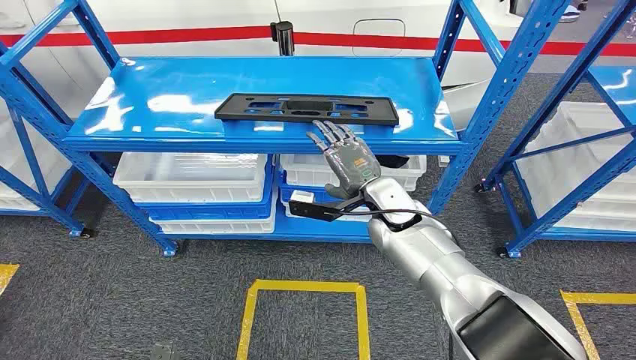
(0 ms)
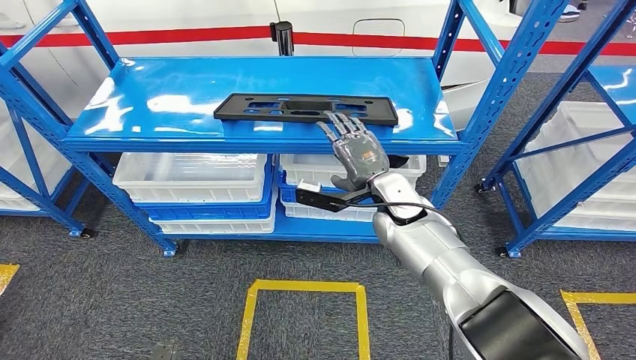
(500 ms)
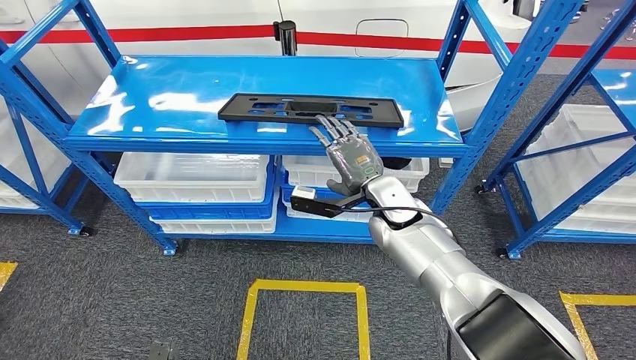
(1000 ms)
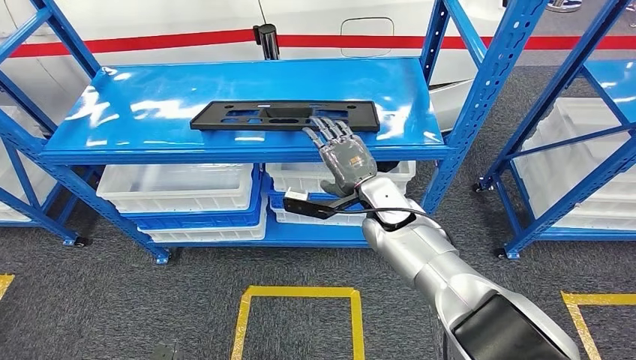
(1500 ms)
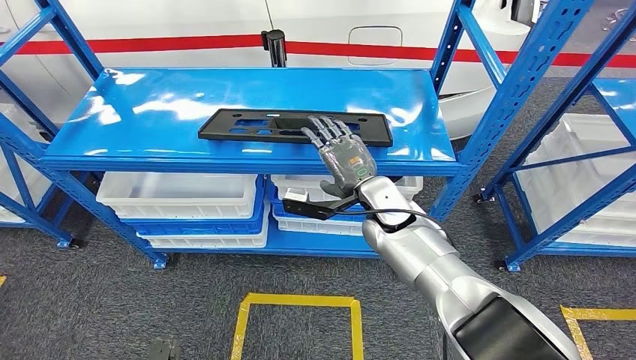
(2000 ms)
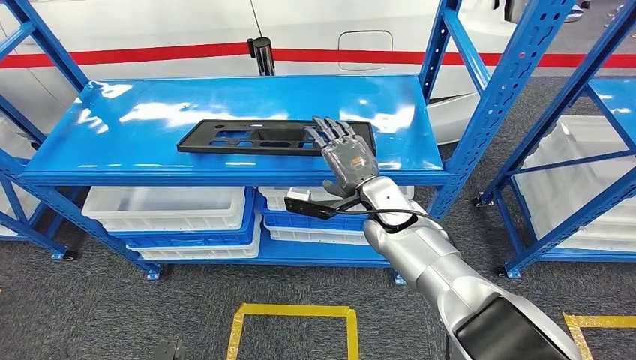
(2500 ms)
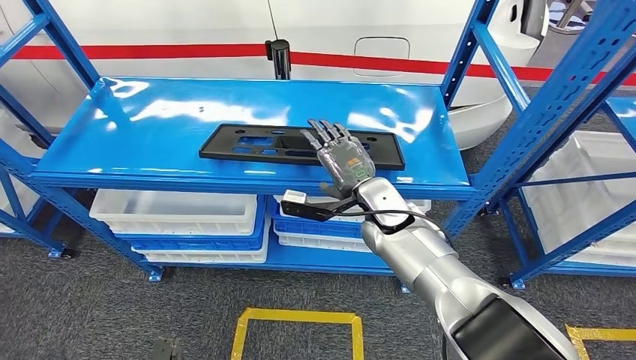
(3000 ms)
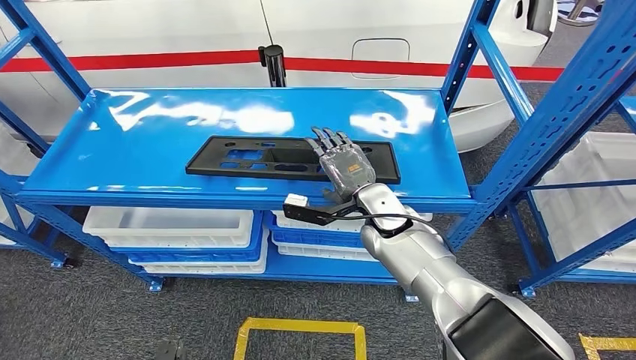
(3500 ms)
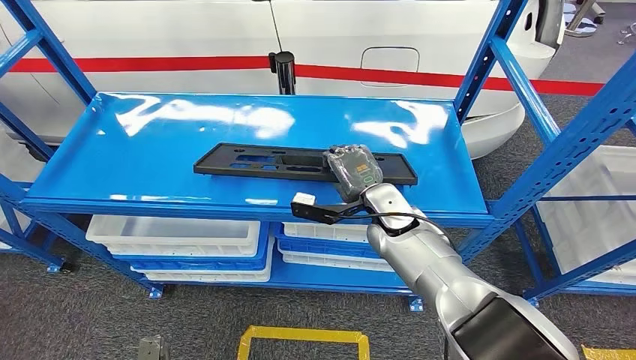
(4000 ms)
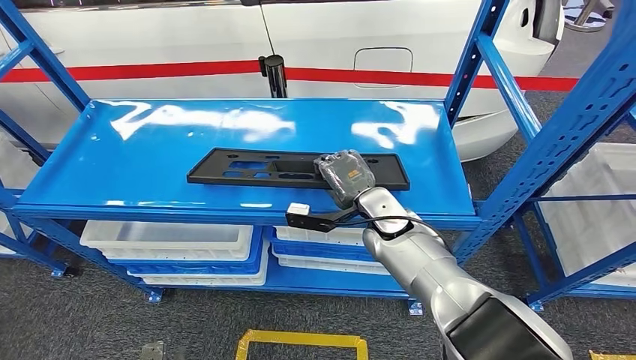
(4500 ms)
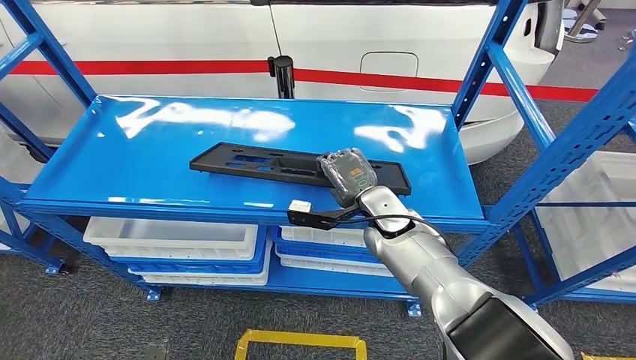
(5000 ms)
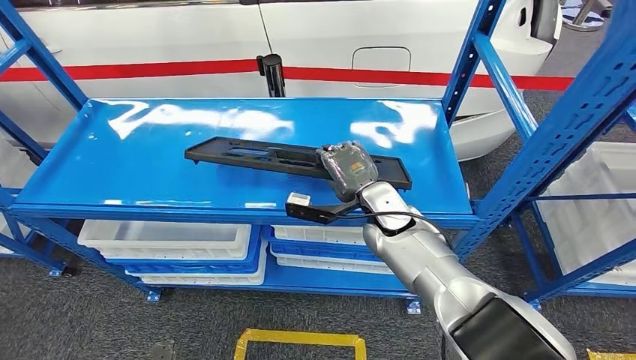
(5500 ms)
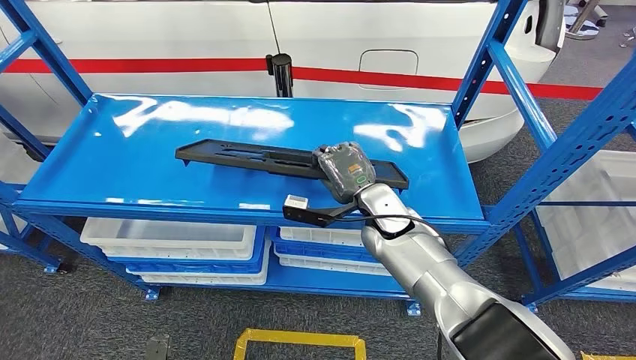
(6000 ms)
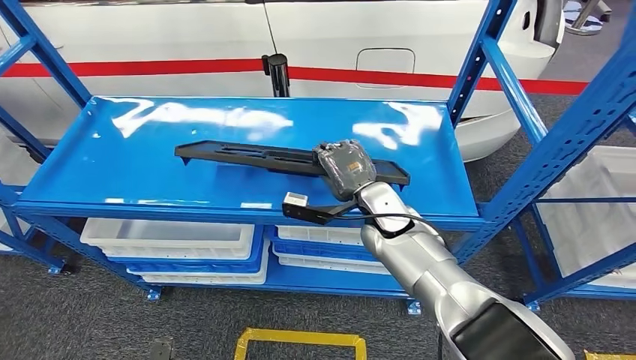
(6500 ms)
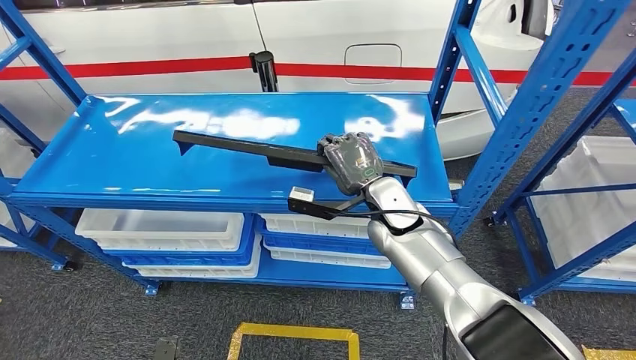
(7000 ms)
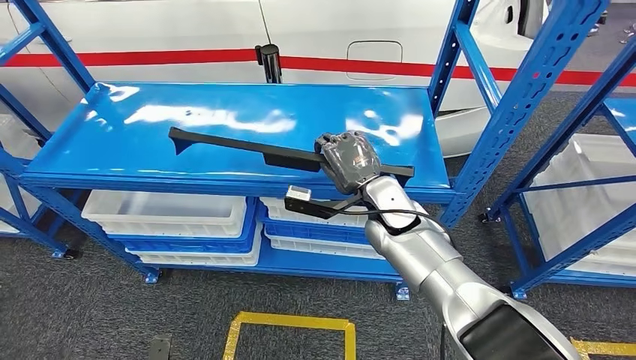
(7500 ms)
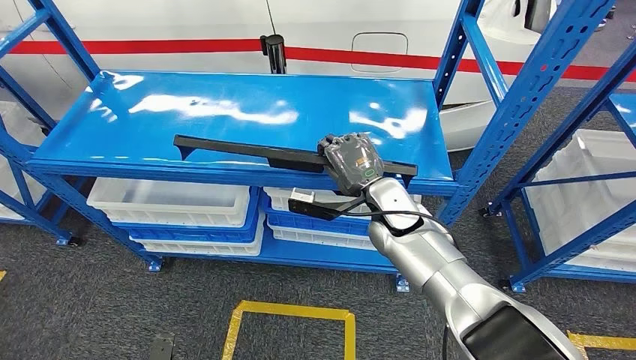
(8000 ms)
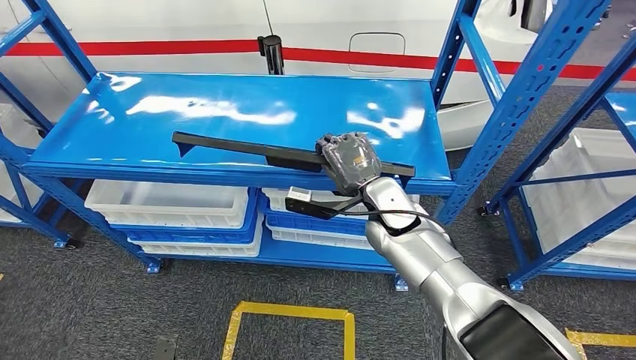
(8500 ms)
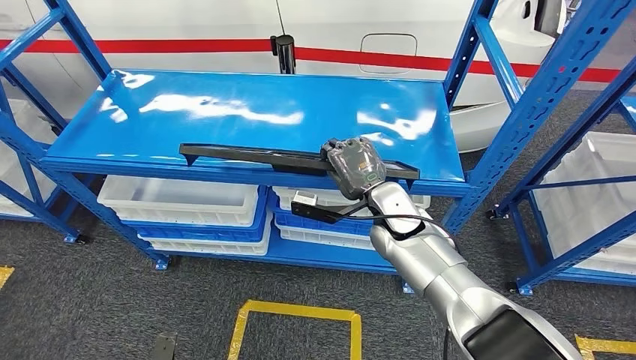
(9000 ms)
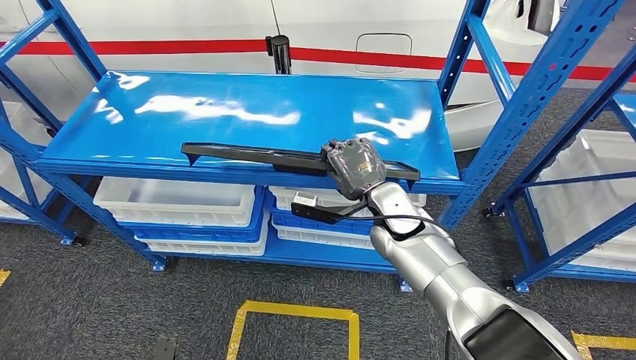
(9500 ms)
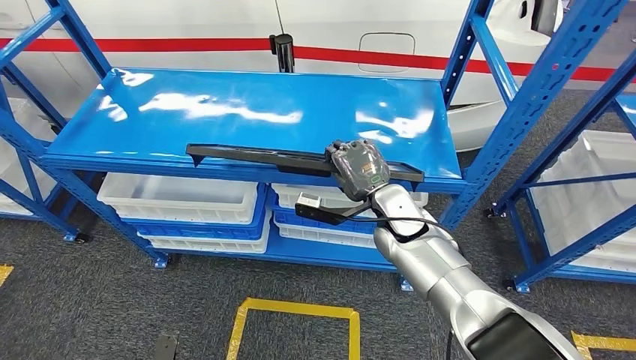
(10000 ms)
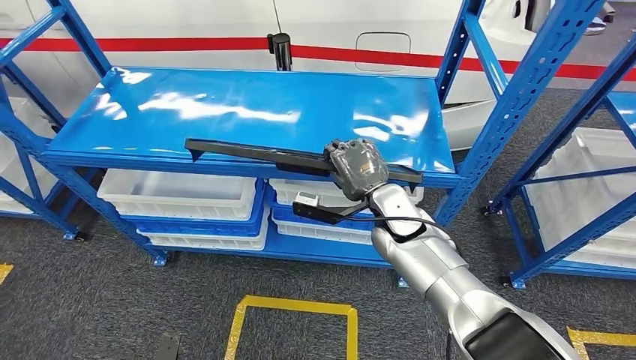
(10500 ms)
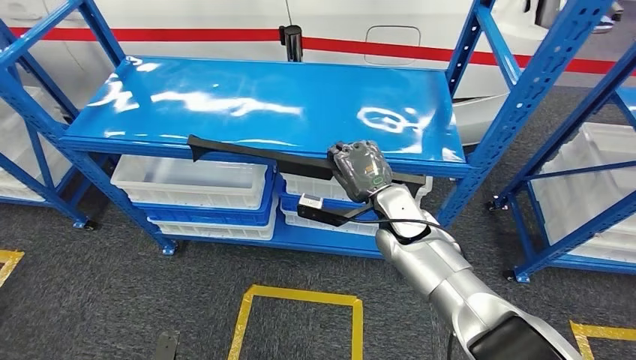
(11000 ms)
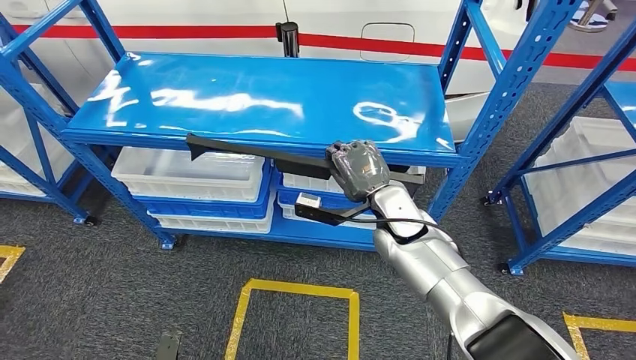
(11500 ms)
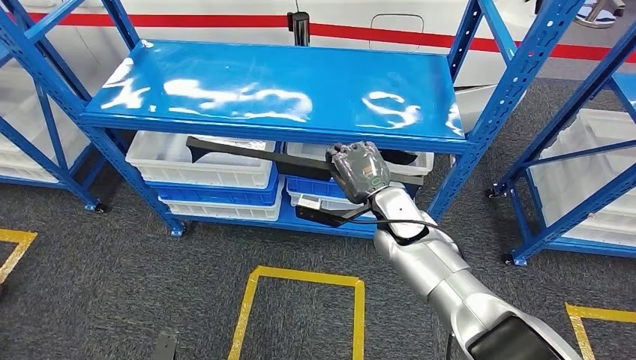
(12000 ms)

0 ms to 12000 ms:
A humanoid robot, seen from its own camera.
Step, 0 ms to 7500 ms: Pick up the large material from the shelf.

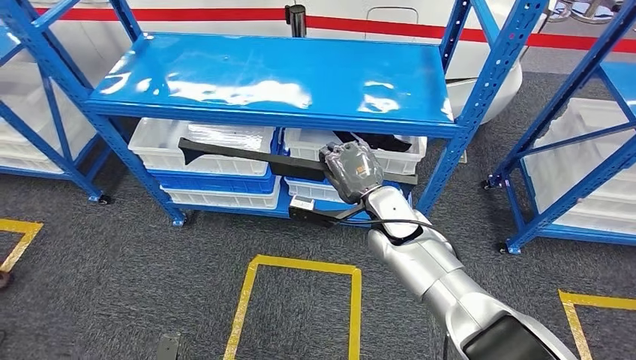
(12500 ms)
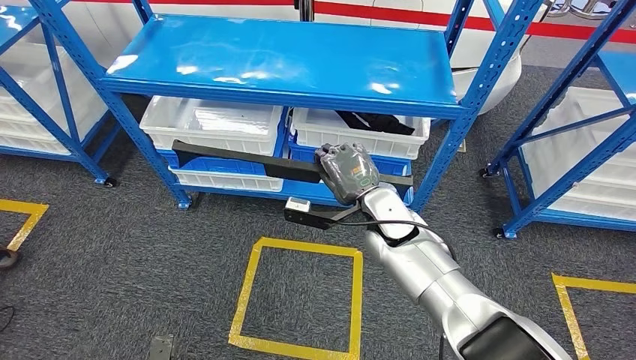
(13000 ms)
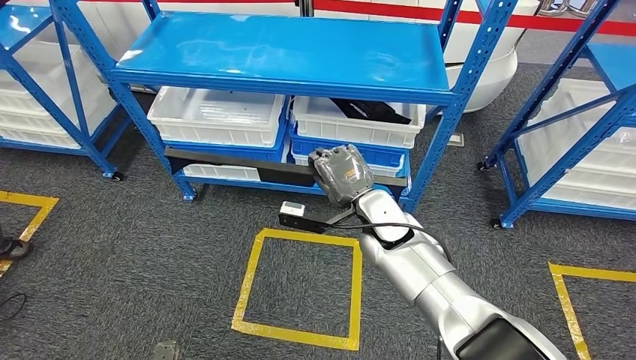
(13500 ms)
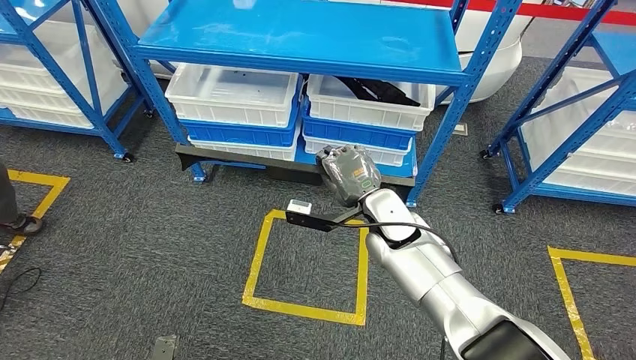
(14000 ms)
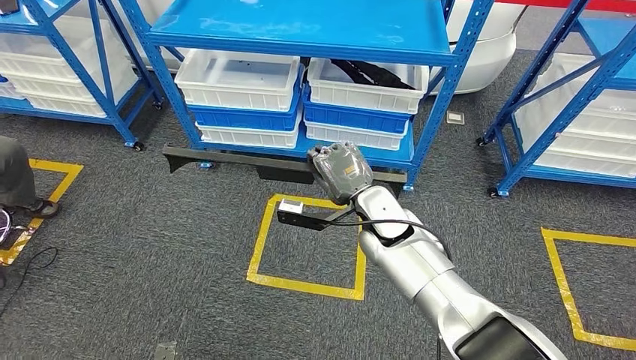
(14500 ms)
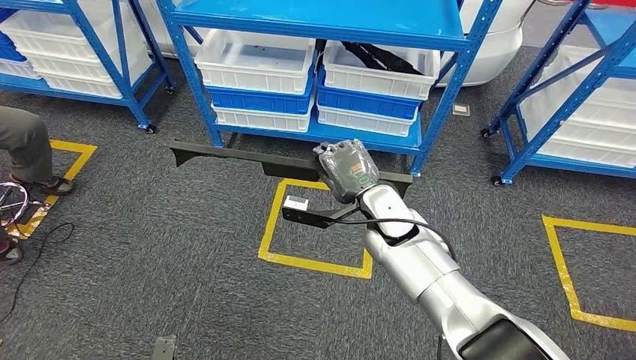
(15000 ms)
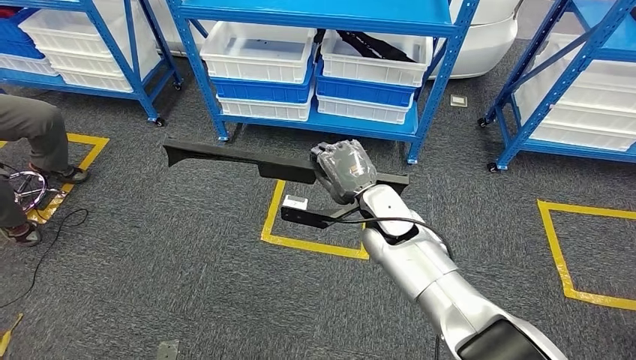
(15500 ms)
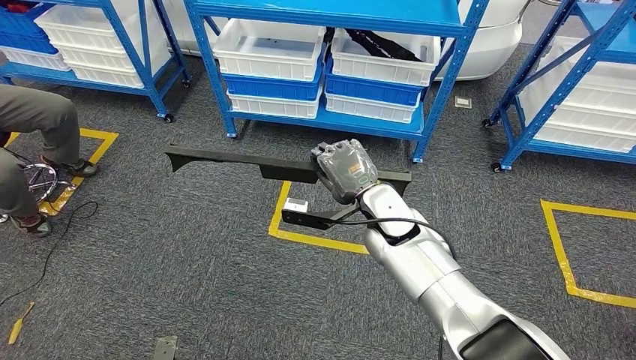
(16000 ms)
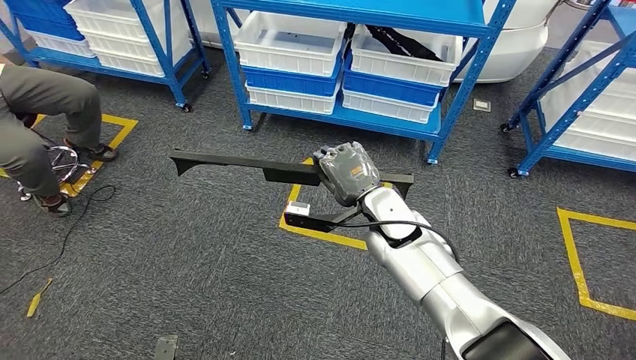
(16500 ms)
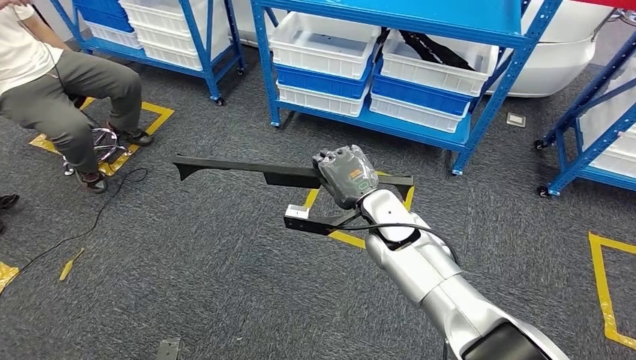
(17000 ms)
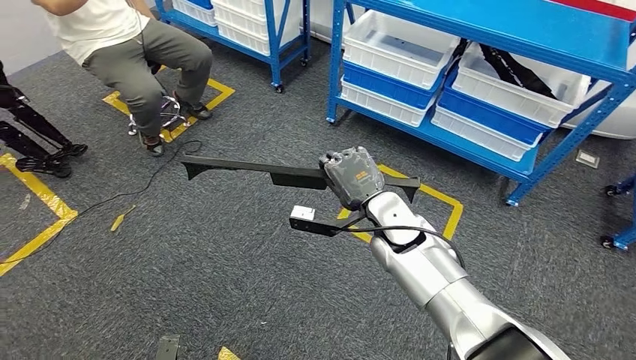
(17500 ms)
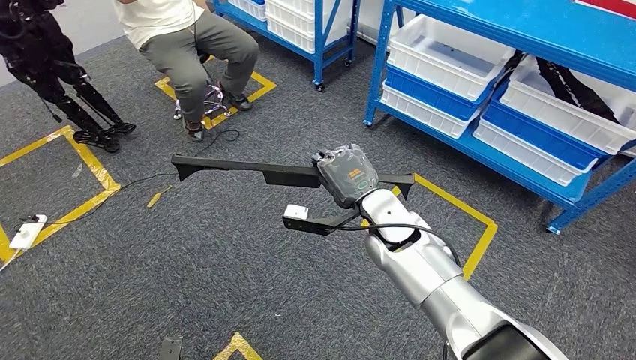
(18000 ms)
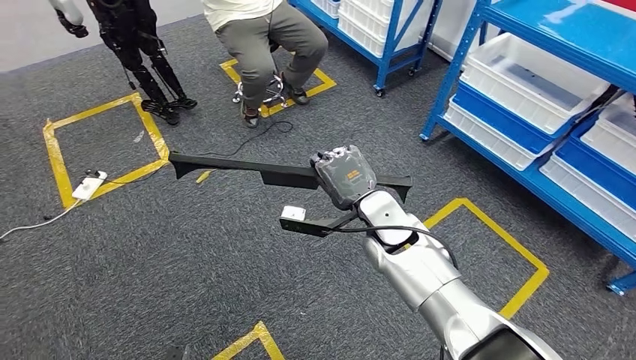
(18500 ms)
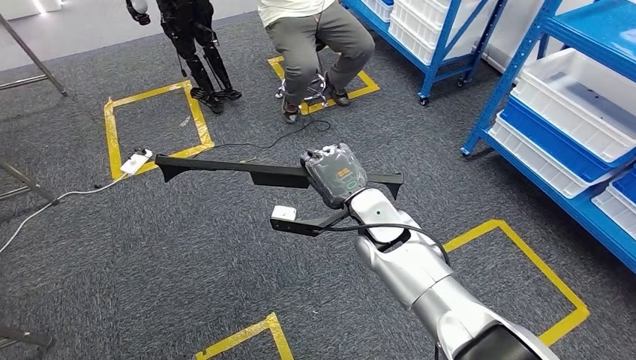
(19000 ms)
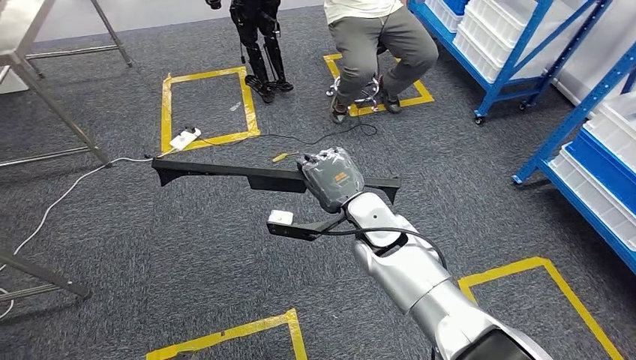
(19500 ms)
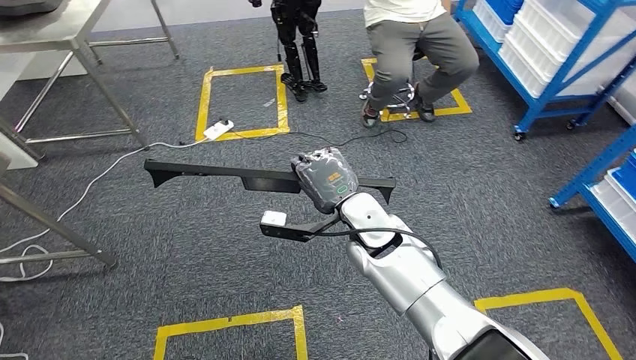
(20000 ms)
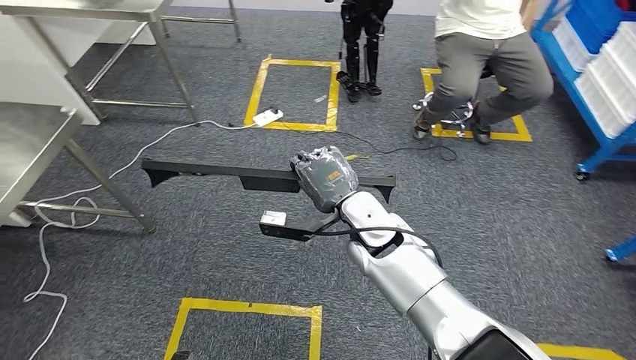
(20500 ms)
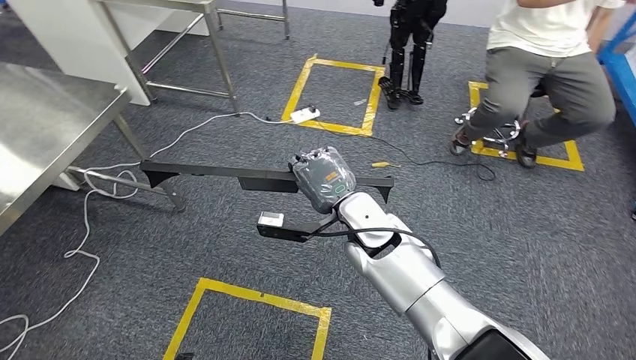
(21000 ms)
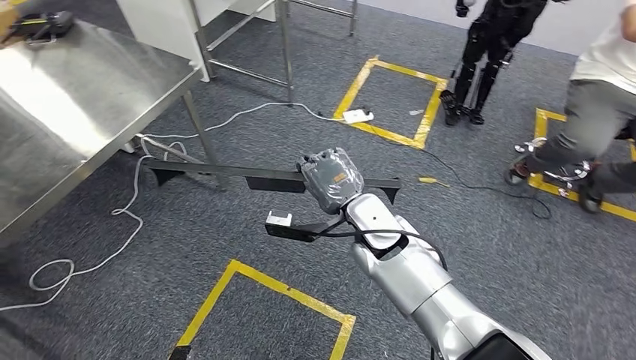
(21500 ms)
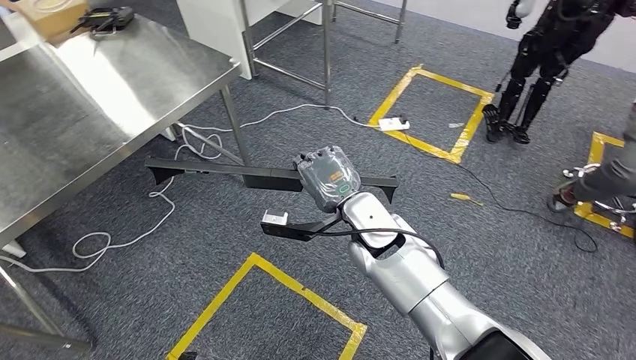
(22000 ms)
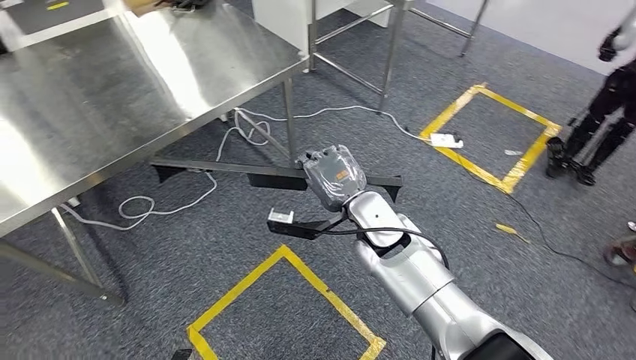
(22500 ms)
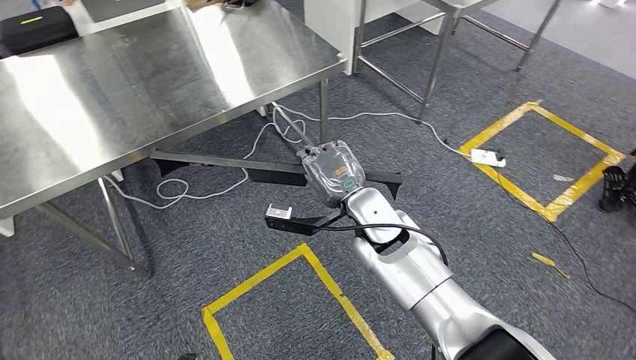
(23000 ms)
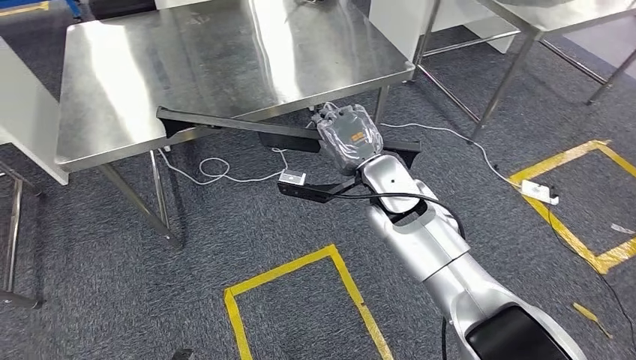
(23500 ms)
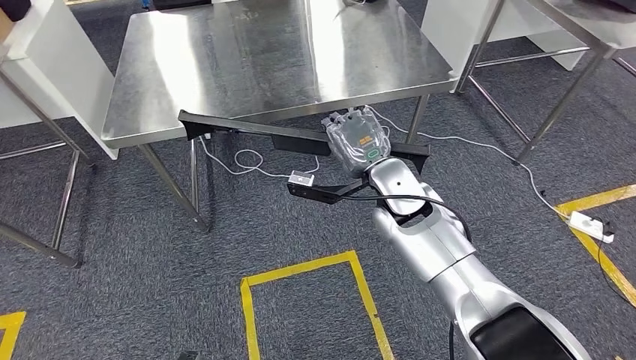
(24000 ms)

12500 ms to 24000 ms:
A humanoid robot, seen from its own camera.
Step, 12500 ms to 23000 ms: Move the large material to the workbench.
